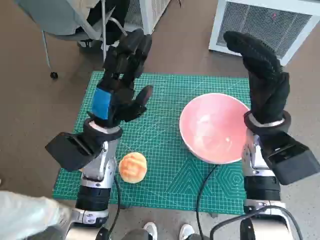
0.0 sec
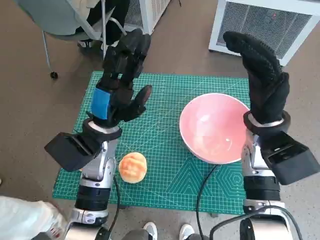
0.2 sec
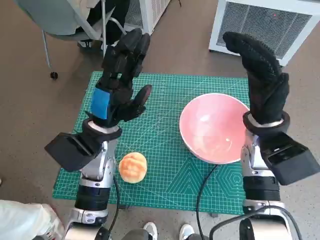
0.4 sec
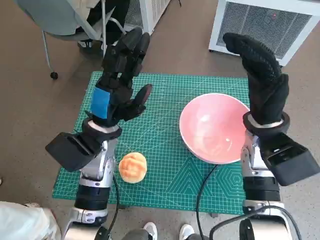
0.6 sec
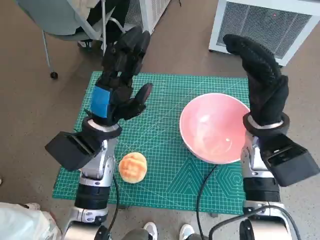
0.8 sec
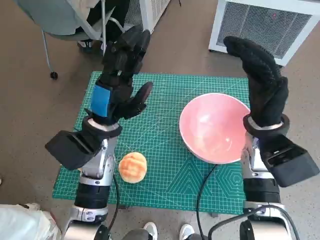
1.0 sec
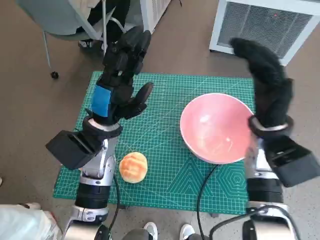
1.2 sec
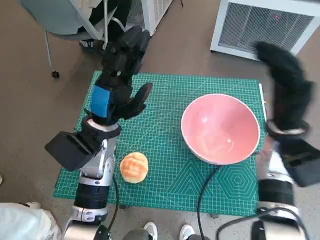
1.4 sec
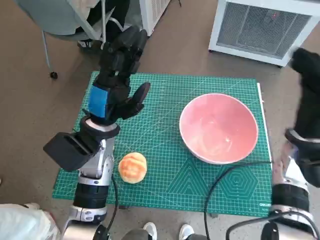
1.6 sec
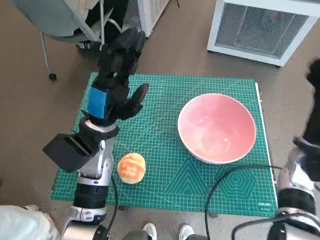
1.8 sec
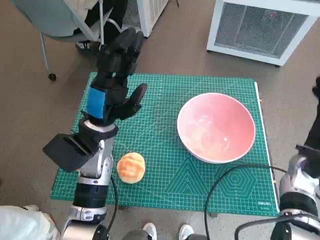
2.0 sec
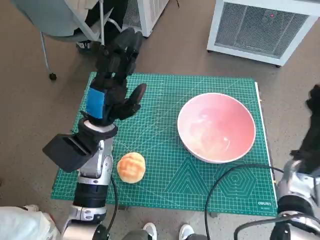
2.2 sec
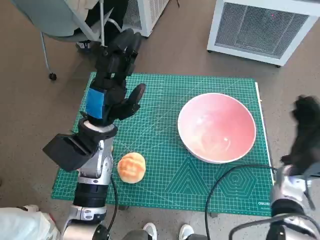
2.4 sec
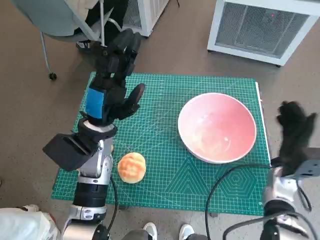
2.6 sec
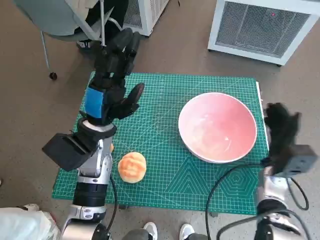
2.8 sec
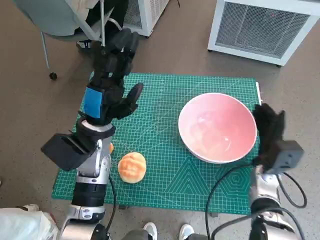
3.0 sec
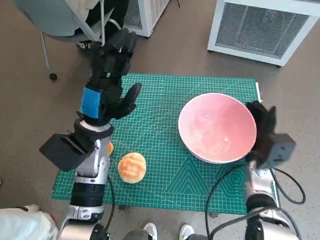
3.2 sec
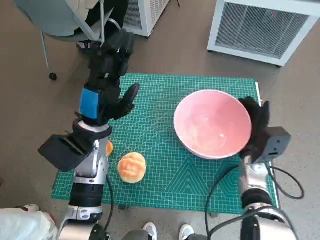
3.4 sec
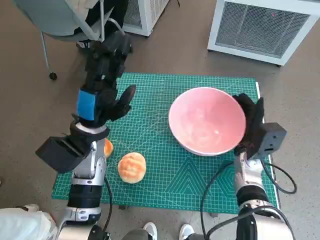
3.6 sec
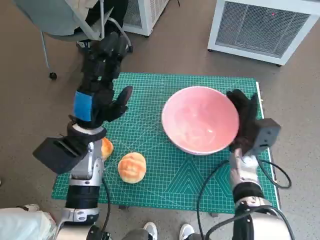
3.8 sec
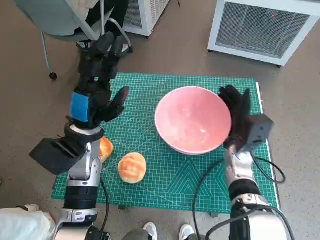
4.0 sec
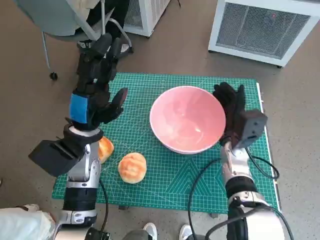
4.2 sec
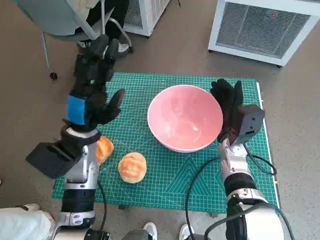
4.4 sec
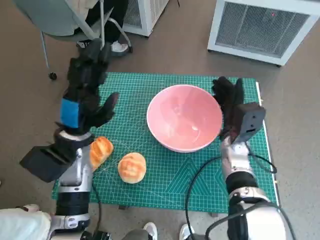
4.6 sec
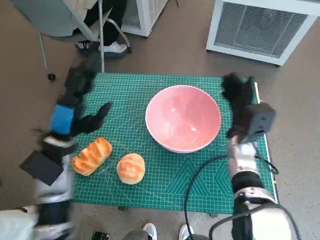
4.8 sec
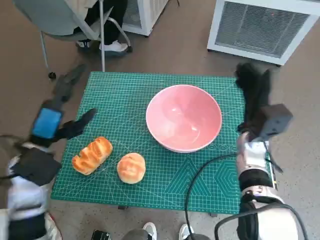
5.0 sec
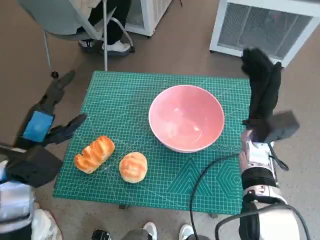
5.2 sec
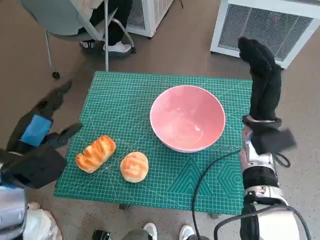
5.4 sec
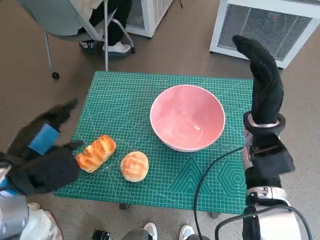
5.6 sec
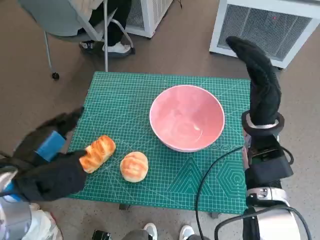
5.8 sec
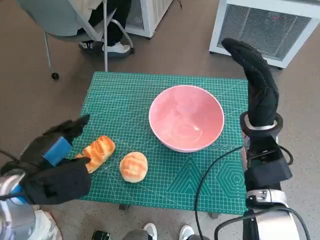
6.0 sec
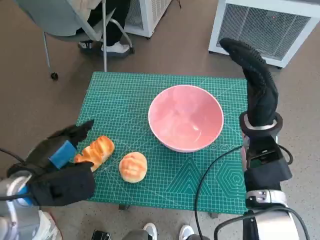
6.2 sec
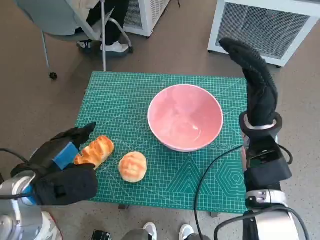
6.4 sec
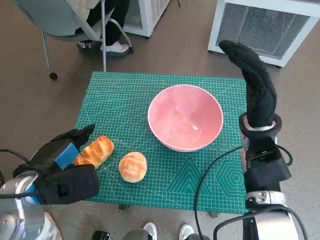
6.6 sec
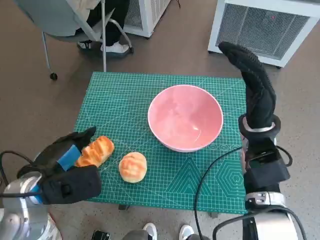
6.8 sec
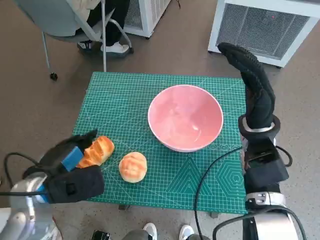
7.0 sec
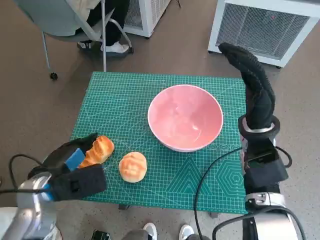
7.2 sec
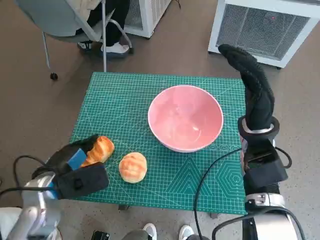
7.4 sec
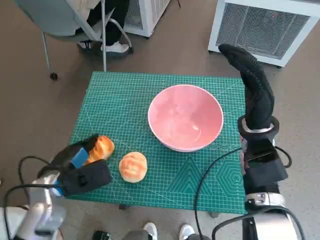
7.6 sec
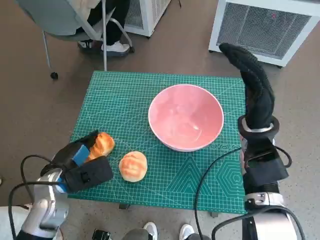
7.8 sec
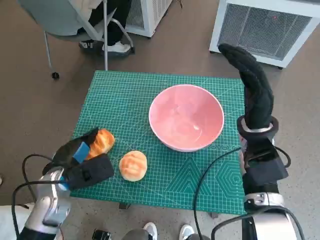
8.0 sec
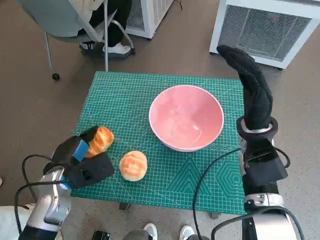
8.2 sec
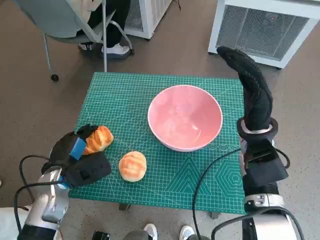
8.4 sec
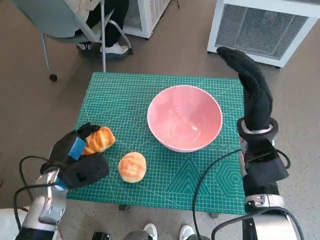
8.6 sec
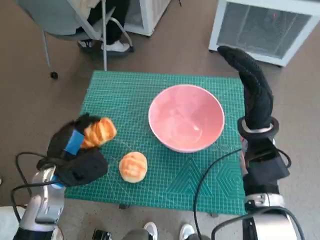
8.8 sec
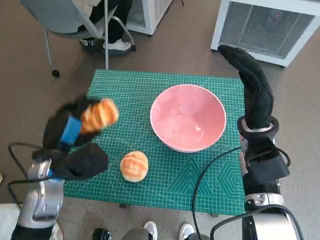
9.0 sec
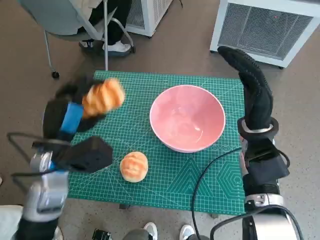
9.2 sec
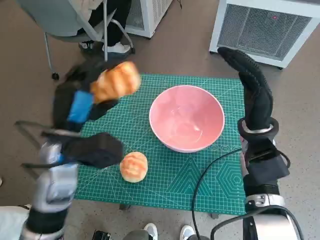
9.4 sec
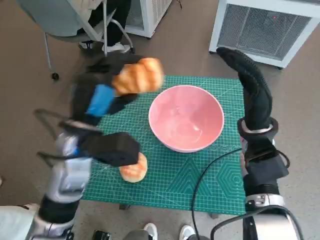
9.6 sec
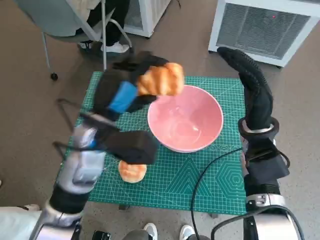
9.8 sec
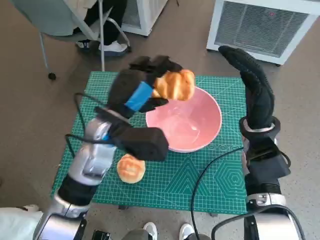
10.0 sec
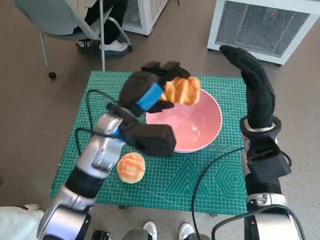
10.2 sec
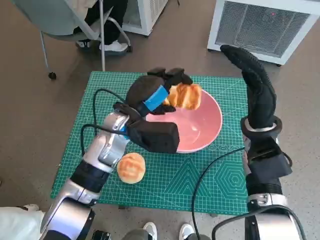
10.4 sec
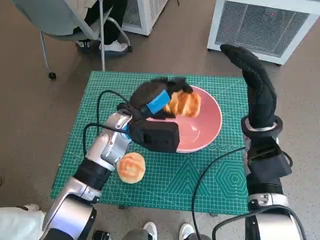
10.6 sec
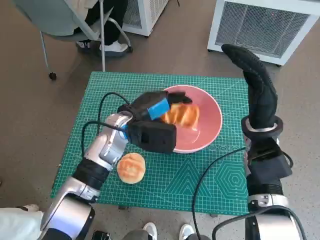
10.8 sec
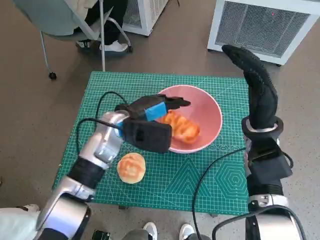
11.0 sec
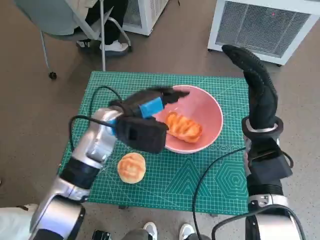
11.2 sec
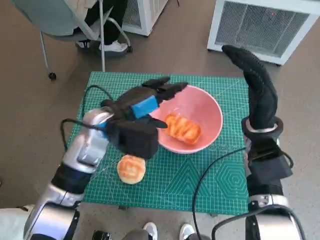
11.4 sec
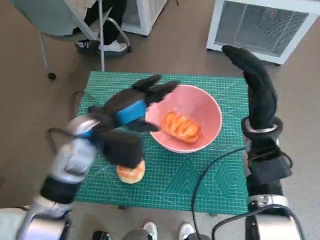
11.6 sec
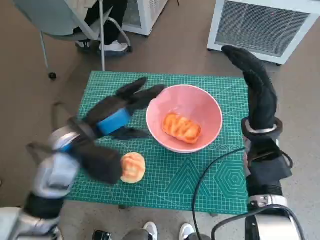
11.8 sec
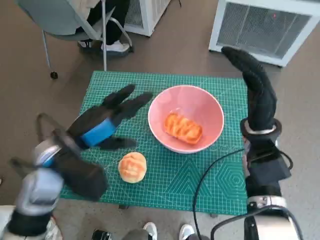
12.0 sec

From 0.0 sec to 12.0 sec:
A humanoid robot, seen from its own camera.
Task of the whole recording: Push the bowl to the center of the table and put the bread into the bowl.
Step, from 0.0 sec to 5.2 sec: Move the pink bowl to the center of table with right hand.
Step, from 5.4 sec to 8.2 sec: Grasp the long bread with left hand.
Step, from 8.4 sec to 11.2 sec: Place the long bread in pink bowl with left hand.
From 1.6 sec to 3.0 sec: The right hand heads downward, covering some 10 cm.
From 3.0 sec to 4.4 sec: The right hand heads to the left, covering approximately 10 cm.
From 4.4 sec to 6.0 sec: The left hand heads backward and to the left, covering approximately 10 cm; the right hand goes approximately 10 cm upward.
From 6.0 sec to 7.6 sec: The left hand heads downward, covering roughly 10 cm.
From 9.0 sec to 10.4 sec: The left hand goes approximately 15 cm to the right and forward.
From 10.4 sec to 12.0 sec: The left hand moves to the left and backward, about 15 cm.

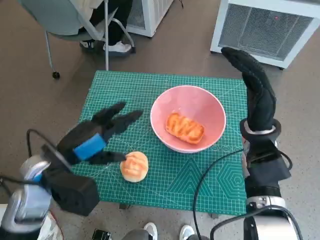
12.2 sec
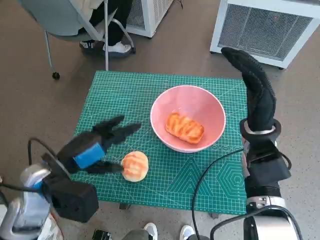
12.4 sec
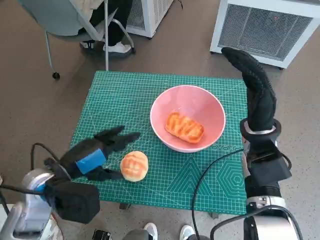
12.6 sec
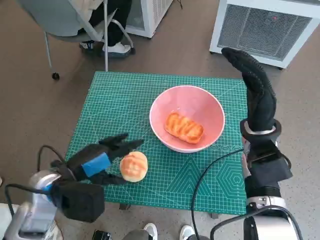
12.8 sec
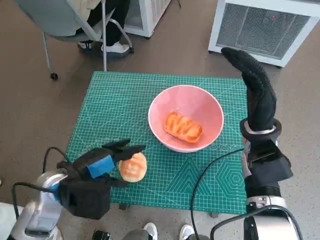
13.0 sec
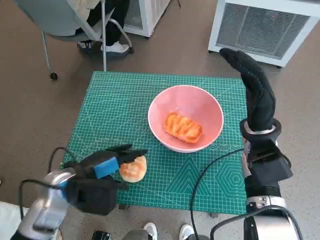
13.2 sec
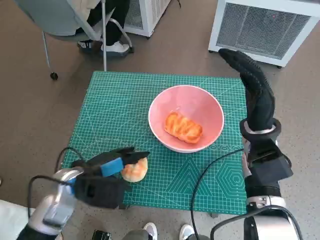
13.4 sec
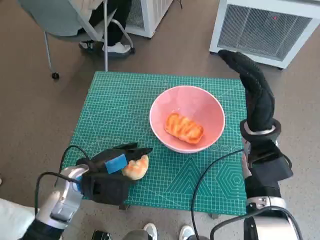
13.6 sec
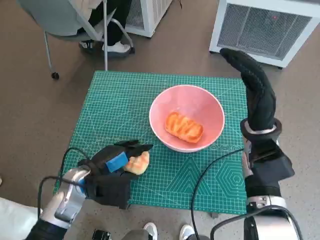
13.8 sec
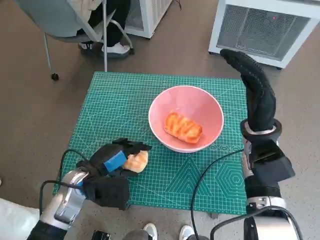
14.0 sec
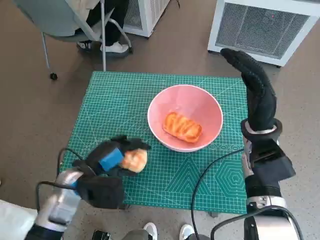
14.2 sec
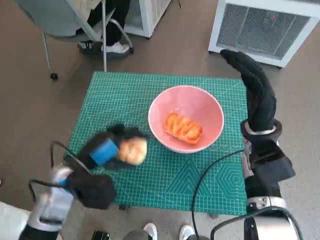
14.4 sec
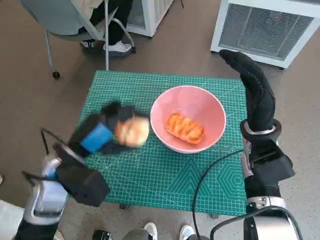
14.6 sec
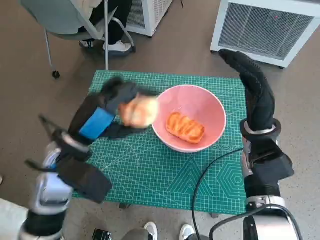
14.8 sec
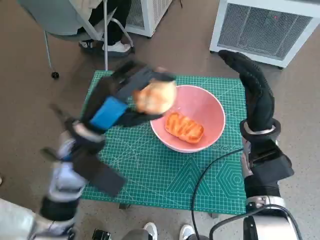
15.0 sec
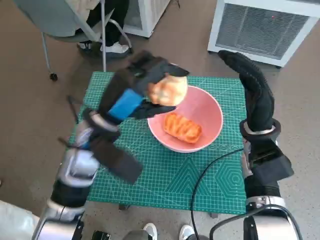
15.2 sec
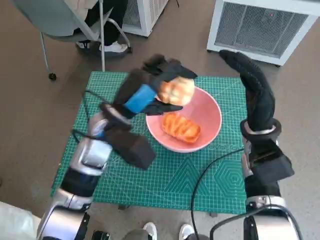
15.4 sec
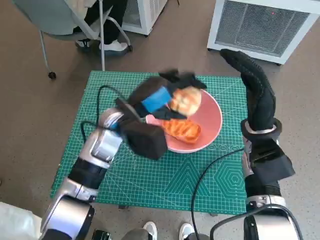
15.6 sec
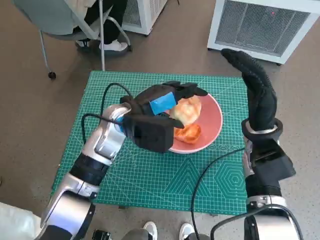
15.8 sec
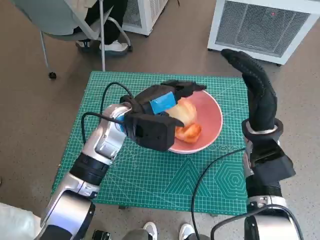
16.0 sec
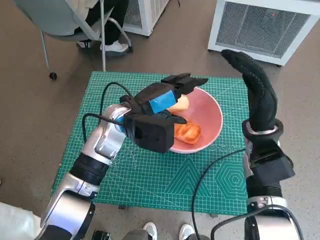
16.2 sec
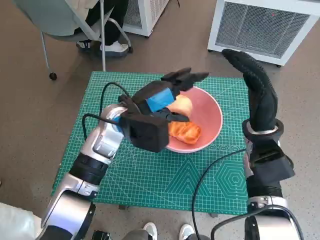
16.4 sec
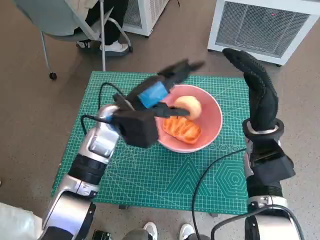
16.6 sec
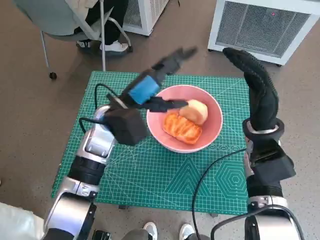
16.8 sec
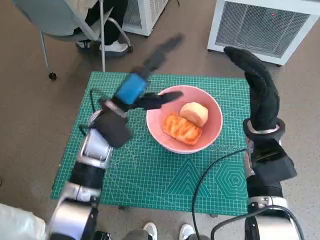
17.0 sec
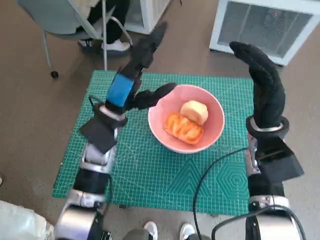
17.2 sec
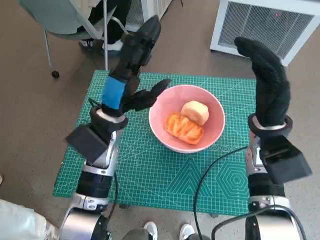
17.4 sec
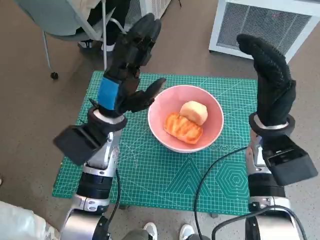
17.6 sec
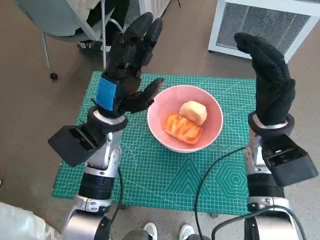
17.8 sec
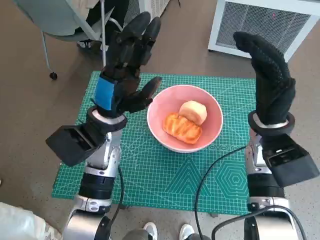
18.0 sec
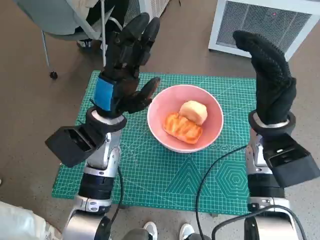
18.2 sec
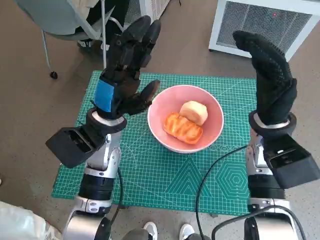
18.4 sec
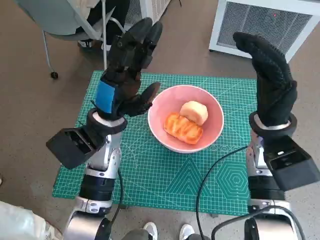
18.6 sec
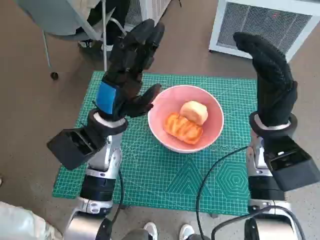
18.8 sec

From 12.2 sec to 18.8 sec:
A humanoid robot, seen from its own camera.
Task of the whole recording: Push the bowl to the center of the table and put the bread into the bowl.
Step, from 12.2 sec to 13.8 sec: Grasp the round bread with left hand.
Step, from 14.0 sec to 17.0 sec: Place the round bread in pink bowl with left hand.
From 12.2 sec to 13.8 sec: The left hand shifts roughly 10 cm downward.
From 13.8 sec to 15.4 sec: The left hand goes approximately 15 cm upward, to the right and forward.

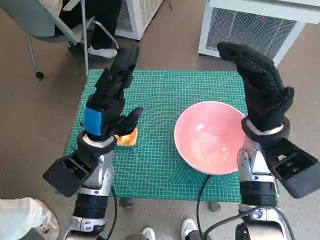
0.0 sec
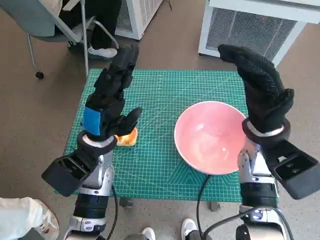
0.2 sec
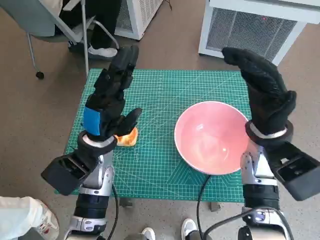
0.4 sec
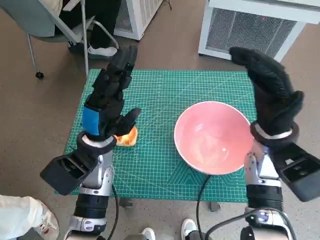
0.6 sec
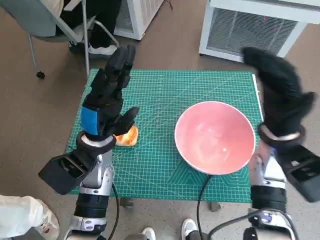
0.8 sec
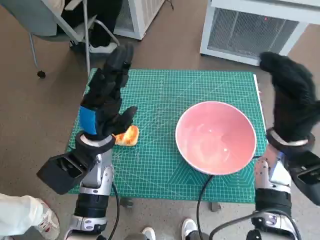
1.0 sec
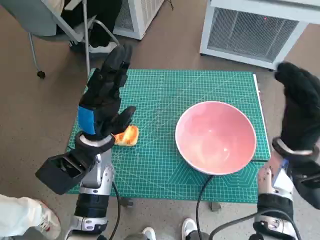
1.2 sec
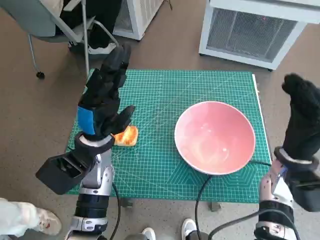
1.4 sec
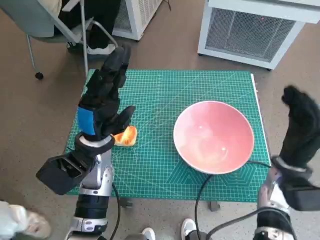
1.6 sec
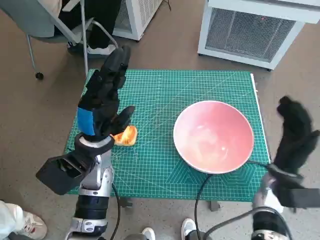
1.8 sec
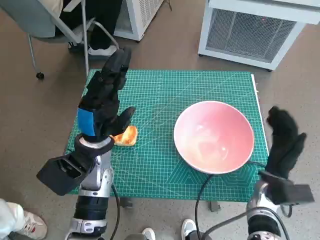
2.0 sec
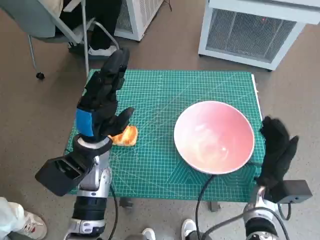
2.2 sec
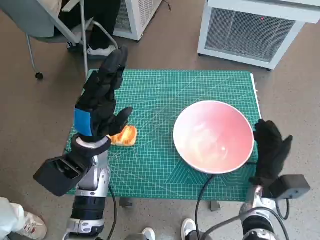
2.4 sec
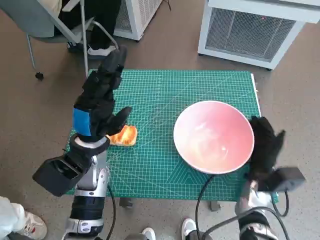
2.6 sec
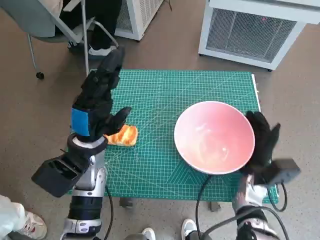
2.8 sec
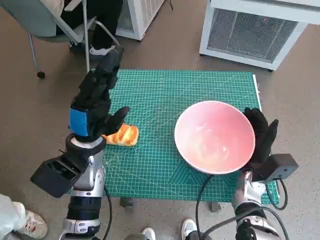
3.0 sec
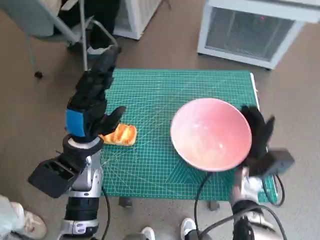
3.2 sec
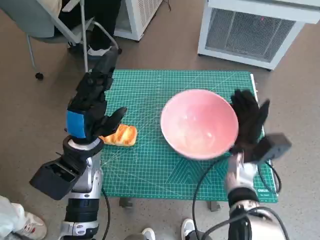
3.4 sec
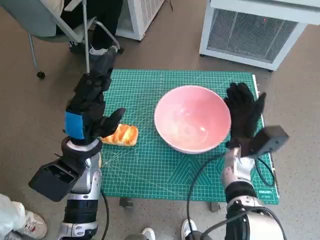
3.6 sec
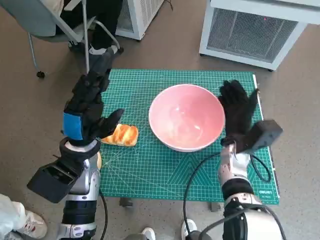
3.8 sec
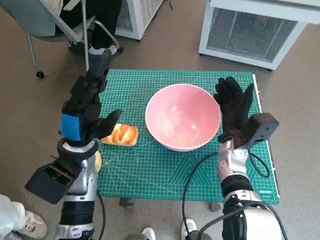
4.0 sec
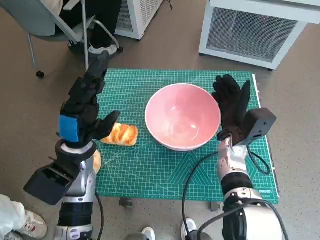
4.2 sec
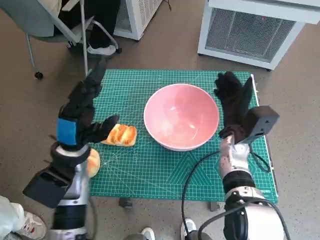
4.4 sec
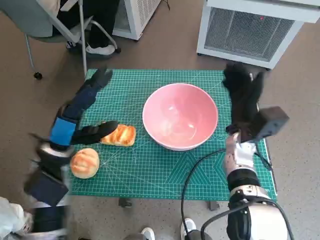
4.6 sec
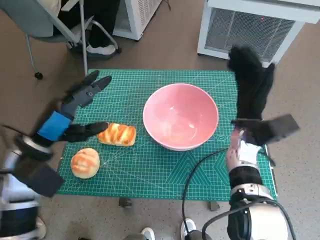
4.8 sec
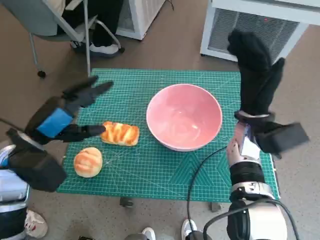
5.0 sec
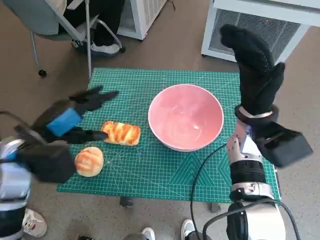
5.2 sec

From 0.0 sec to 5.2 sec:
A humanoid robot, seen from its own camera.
Task of the whole recording: Push the bowl to the center of the table and put the bread into the bowl.
Step, from 0.0 sec to 4.4 sec: Move the pink bowl to the center of table with right hand.
From 1.8 sec to 3.4 sec: The right hand heads to the left, covering some 5 cm.
From 3.4 sec to 5.2 sec: The left hand shifts roughly 10 cm to the left and upward; the right hand heads upward, covering roughly 15 cm.
